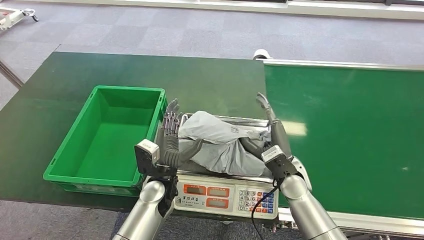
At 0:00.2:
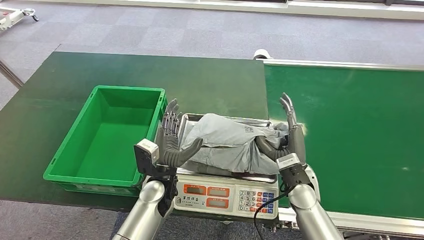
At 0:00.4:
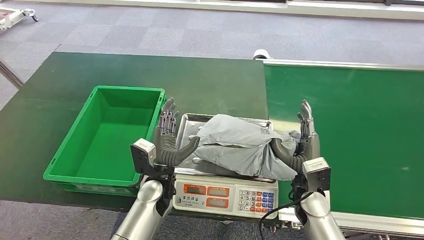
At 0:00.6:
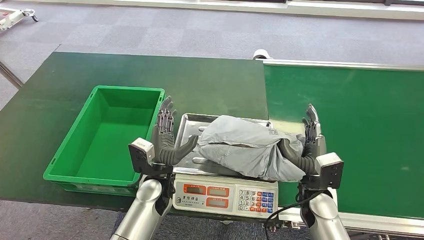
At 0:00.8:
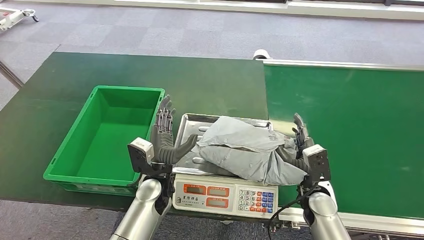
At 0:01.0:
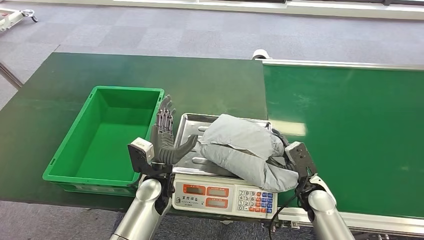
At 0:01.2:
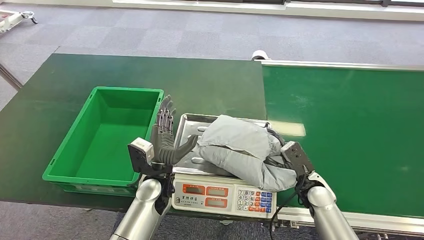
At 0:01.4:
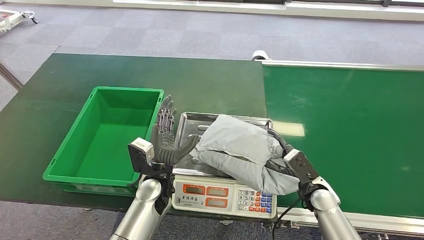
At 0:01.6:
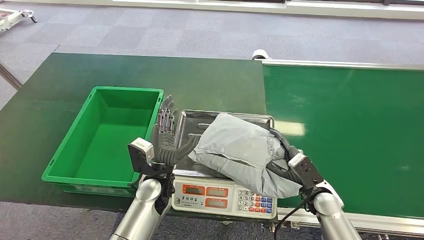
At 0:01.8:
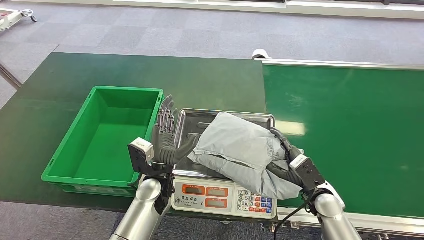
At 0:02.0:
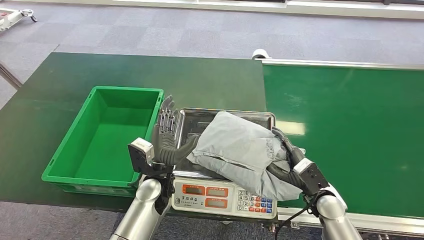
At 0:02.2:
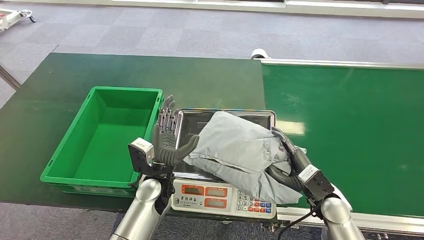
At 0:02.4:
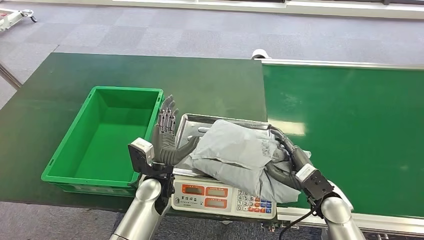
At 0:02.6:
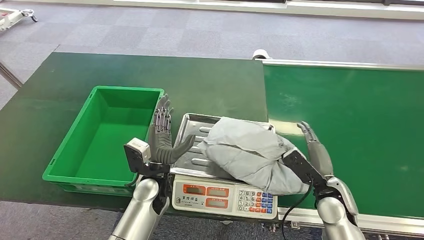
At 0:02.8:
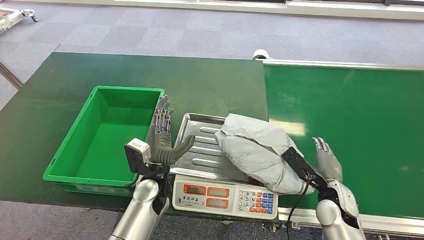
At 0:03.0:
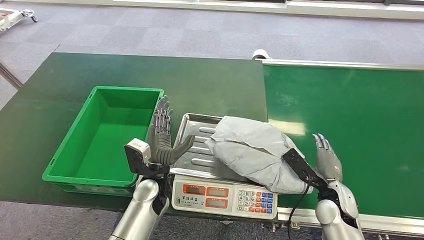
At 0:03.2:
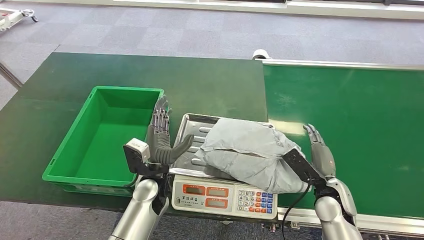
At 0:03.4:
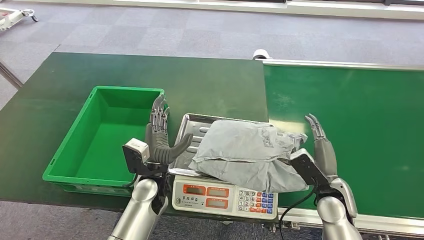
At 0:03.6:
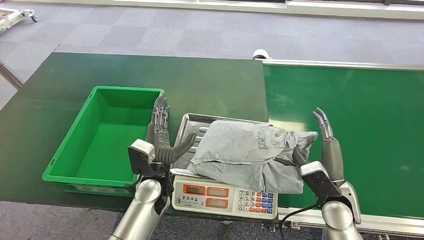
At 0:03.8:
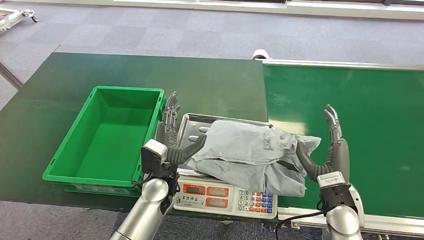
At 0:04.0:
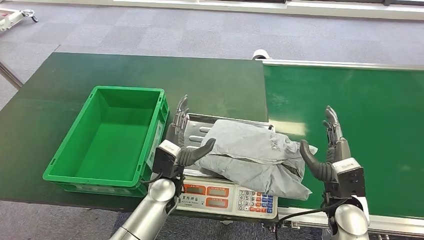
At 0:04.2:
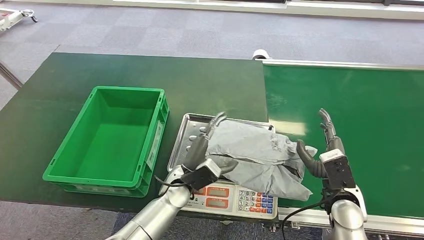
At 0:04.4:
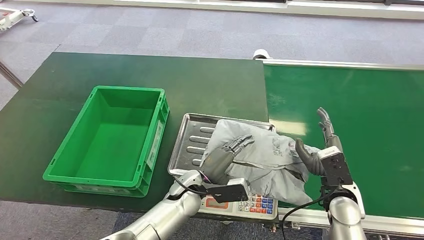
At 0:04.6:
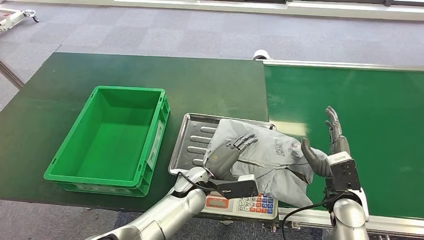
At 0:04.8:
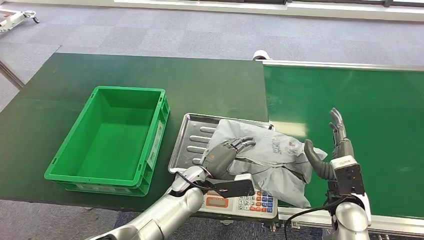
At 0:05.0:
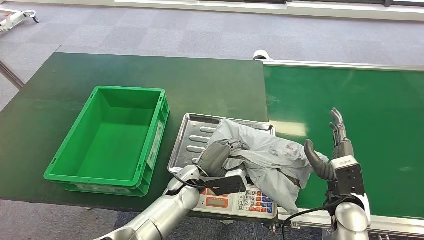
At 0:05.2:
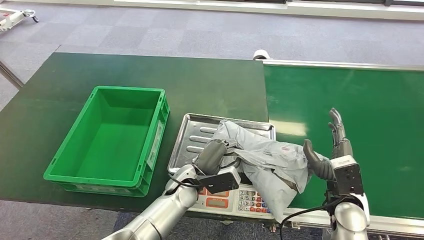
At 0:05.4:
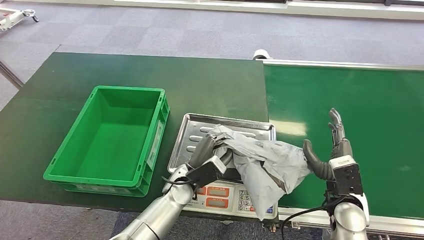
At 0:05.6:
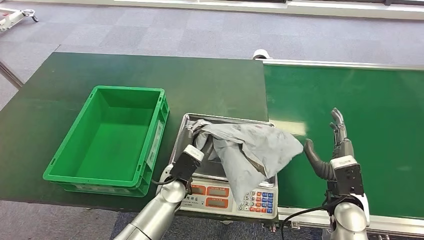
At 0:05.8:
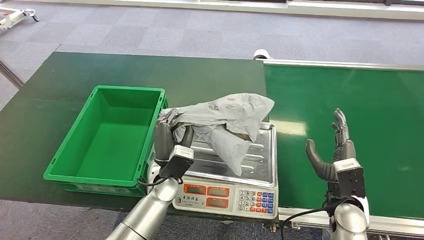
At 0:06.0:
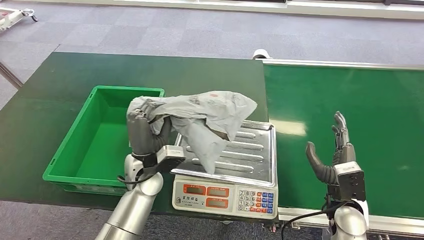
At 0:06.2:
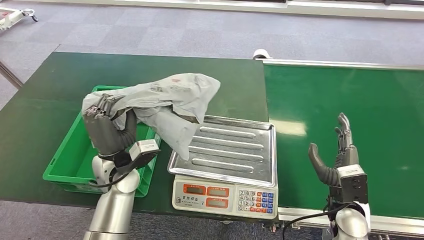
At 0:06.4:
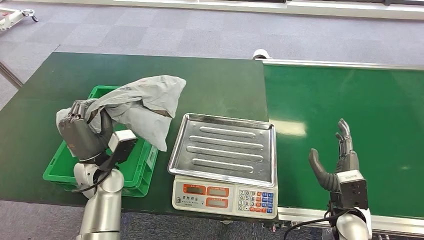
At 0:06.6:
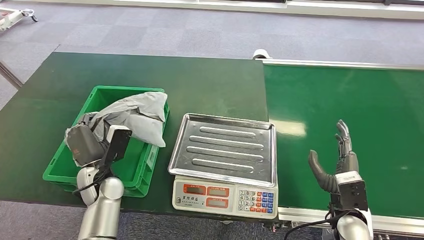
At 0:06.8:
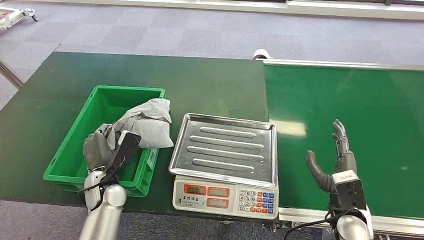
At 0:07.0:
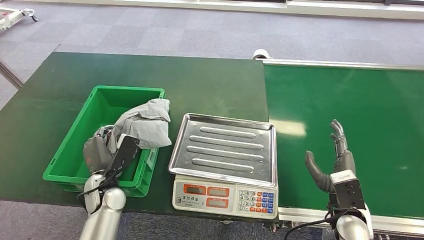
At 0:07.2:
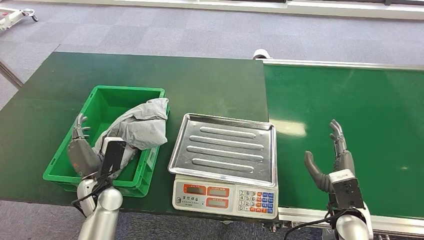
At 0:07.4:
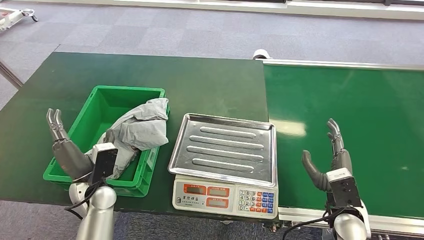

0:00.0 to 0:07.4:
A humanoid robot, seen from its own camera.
Task of the whole recording: Weigh the package on the weighing device and place it in the left basket.
Step, 0:01.6 to 0:06.4: Pick up the package from the inbound machine.
Step, 0:06.6 to 0:07.4: Place the package into the parcel locker.
0:00.0 to 0:01.4: The right hand is displaced to the right and downward by roughly 10 cm.
0:03.0 to 0:04.4: The left hand heads to the right, covering some 5 cm.
0:04.4 to 0:06.0: The left hand goes roughly 10 cm to the left and upward.
0:06.0 to 0:07.4: The left hand travels to the left by roughly 10 cm.
